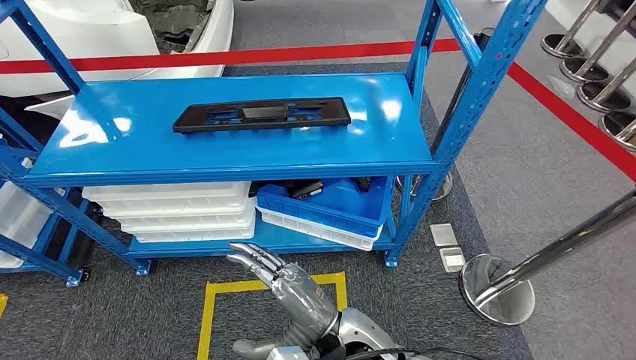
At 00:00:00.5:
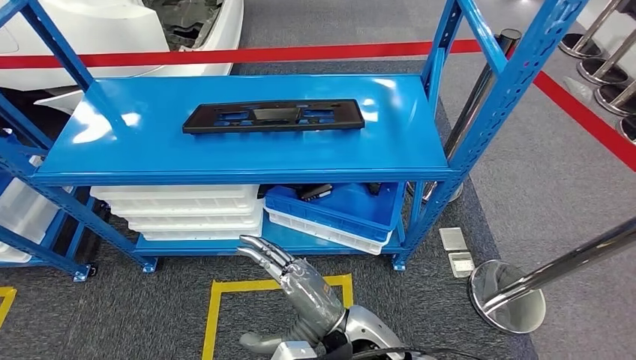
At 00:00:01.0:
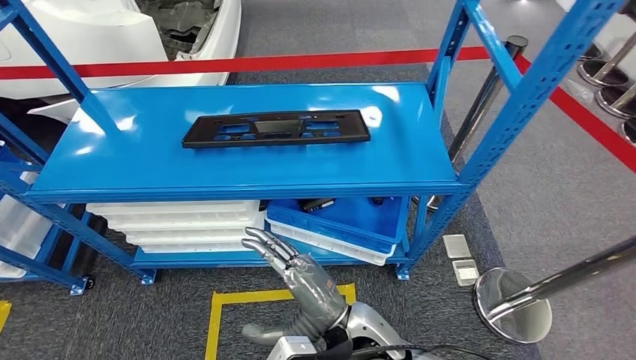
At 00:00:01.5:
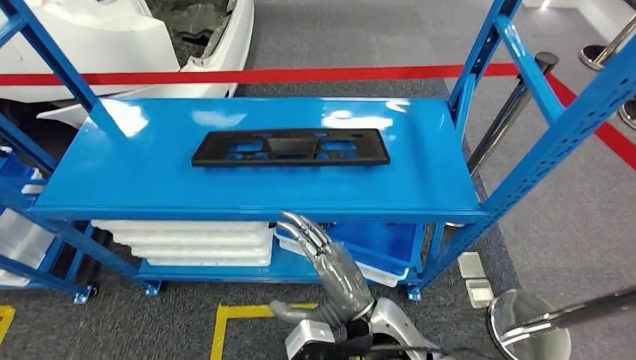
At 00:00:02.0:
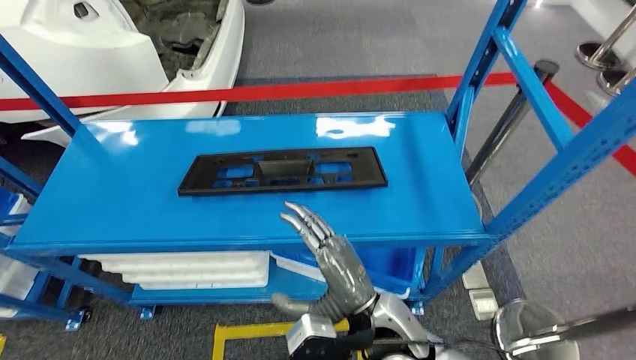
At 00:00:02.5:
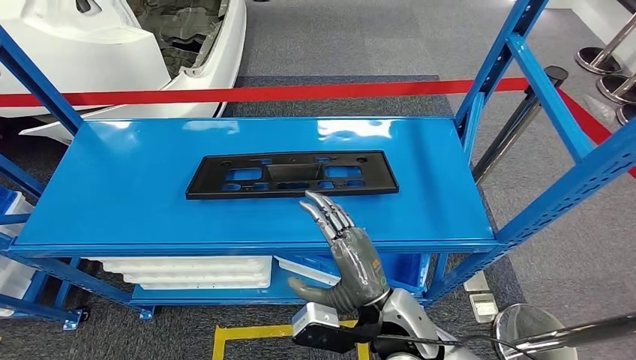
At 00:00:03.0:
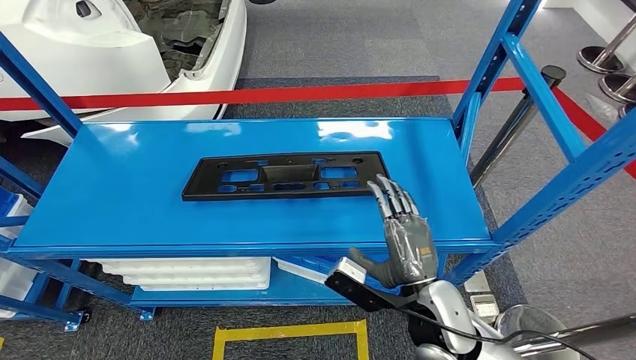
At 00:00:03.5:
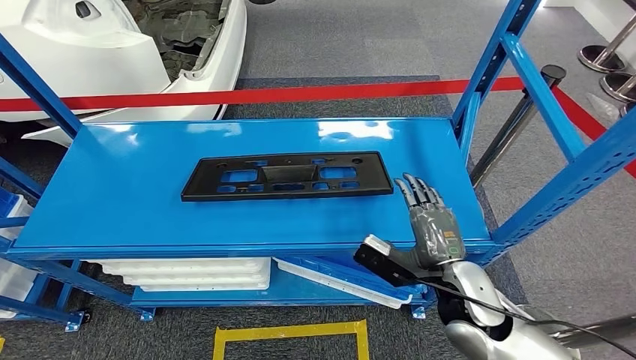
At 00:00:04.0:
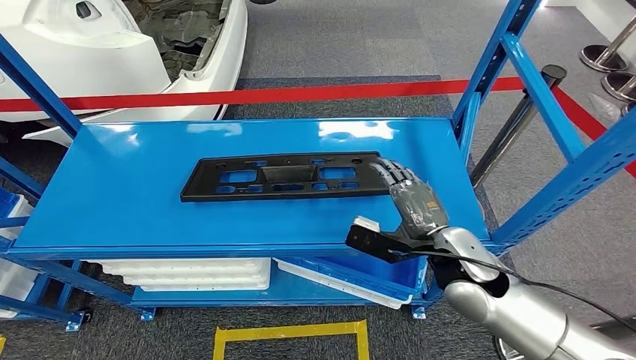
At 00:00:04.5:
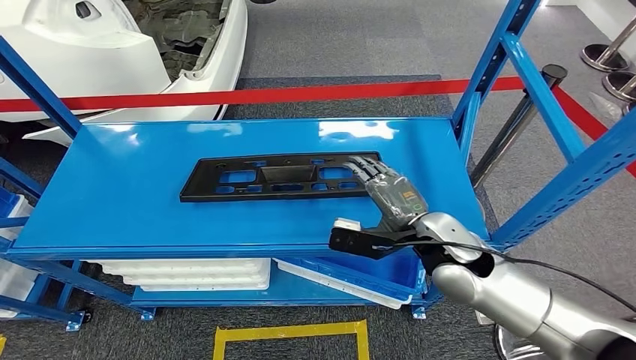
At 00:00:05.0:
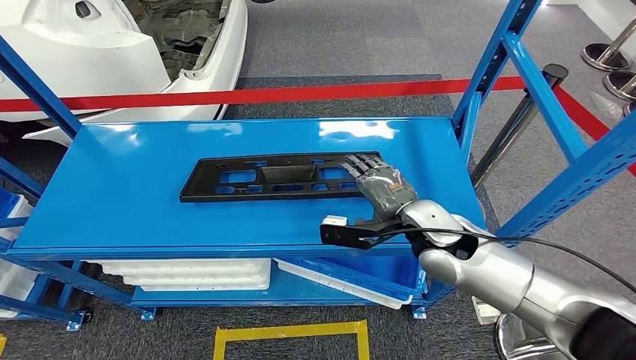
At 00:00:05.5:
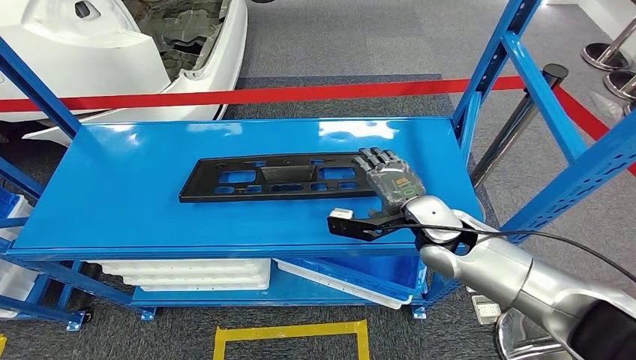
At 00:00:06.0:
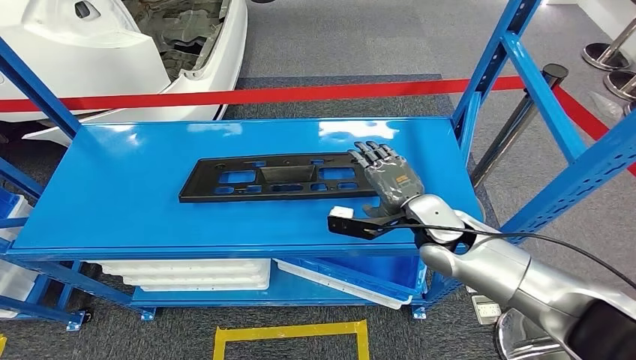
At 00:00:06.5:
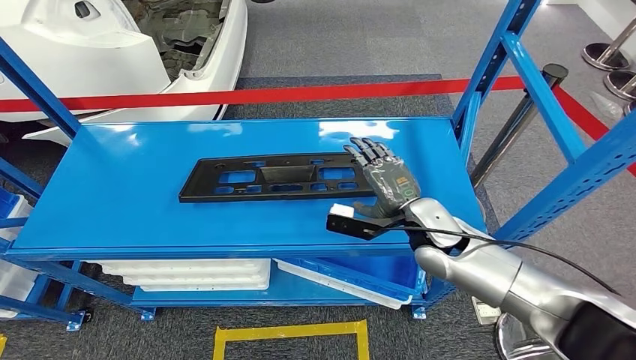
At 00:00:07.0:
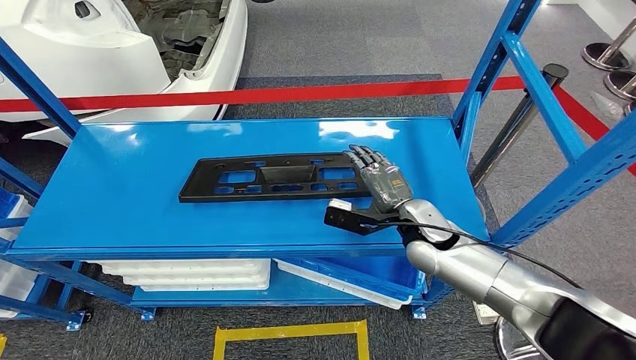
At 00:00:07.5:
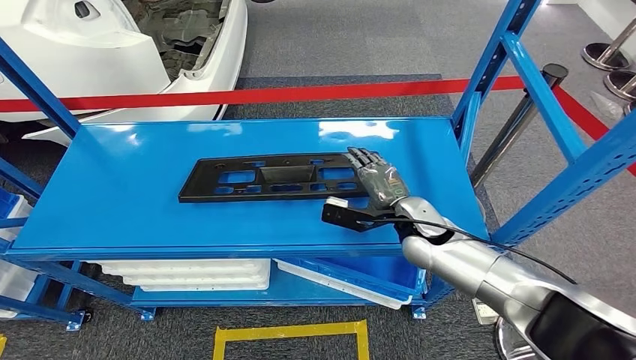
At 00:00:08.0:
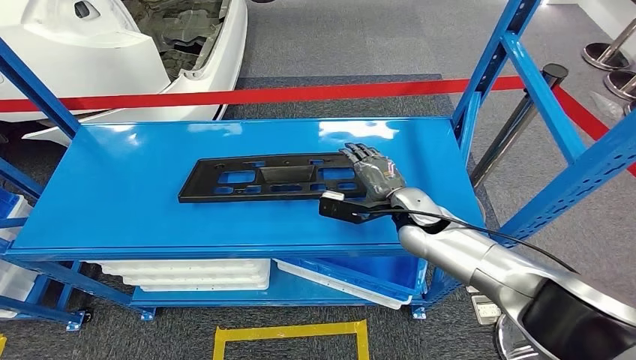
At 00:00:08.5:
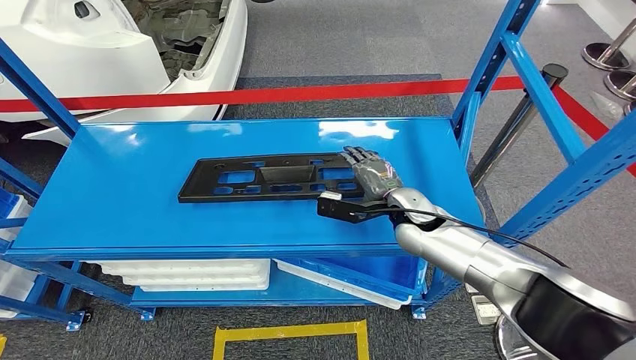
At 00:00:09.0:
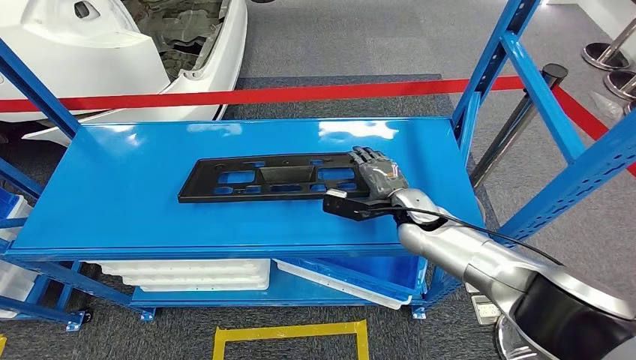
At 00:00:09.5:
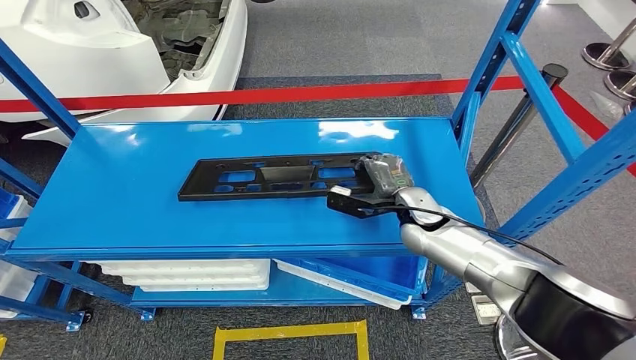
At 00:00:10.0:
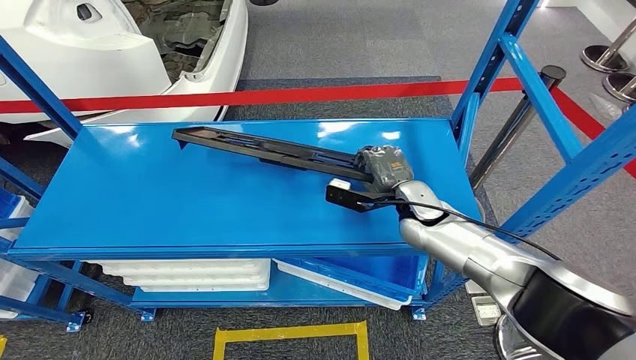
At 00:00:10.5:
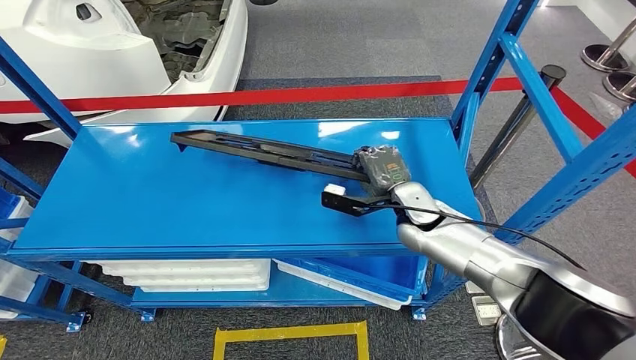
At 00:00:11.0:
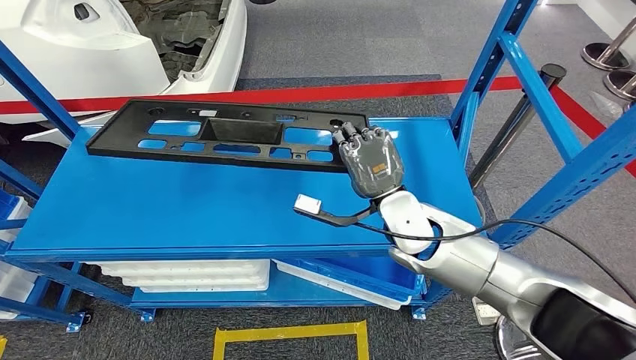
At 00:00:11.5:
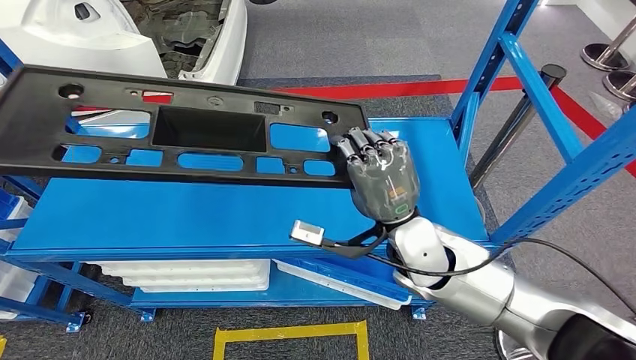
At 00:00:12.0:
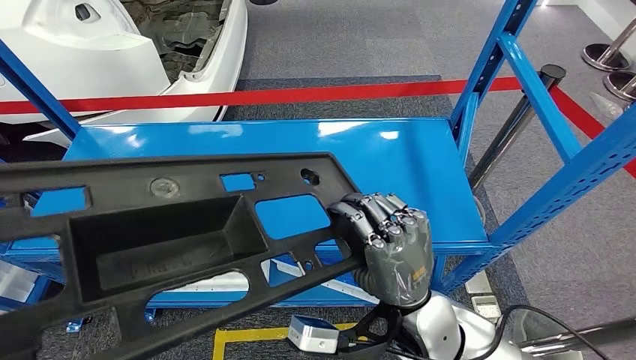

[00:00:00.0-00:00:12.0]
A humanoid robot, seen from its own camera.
00:00:04.0 to 00:00:06.0: The right hand travels forward by approximately 5 cm.
00:00:06.0 to 00:00:08.0: The right hand moves roughly 5 cm.
00:00:08.0 to 00:00:10.0: The hands move only a little.

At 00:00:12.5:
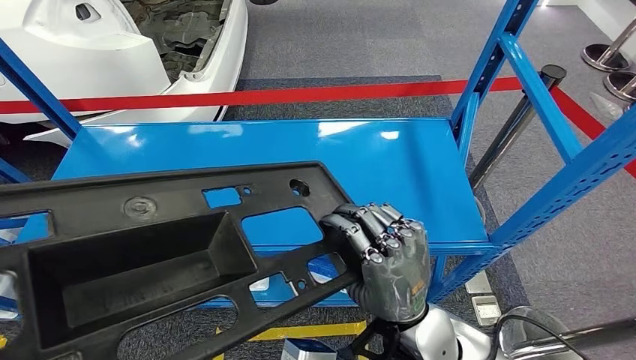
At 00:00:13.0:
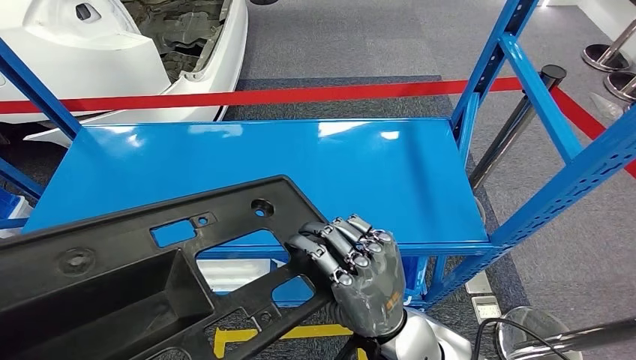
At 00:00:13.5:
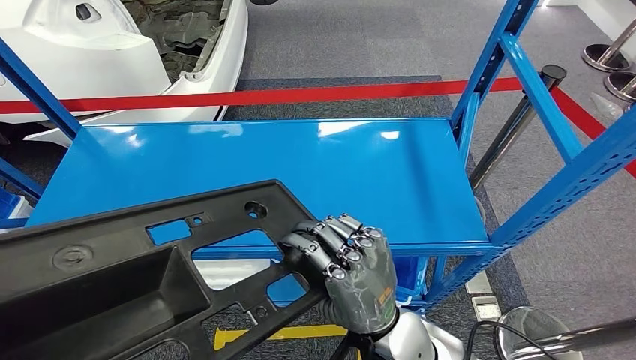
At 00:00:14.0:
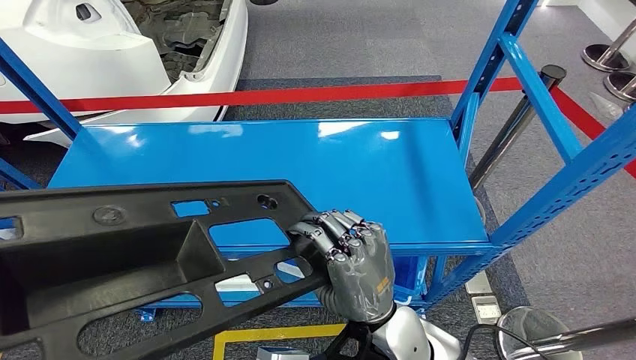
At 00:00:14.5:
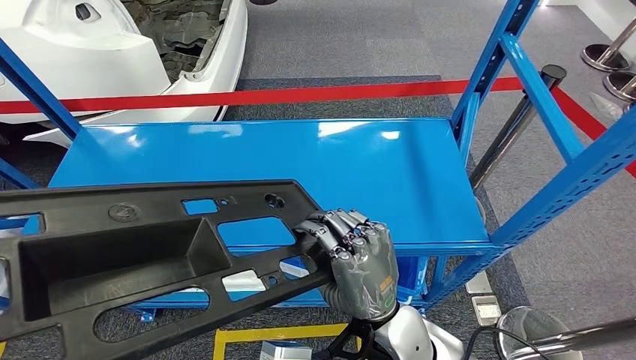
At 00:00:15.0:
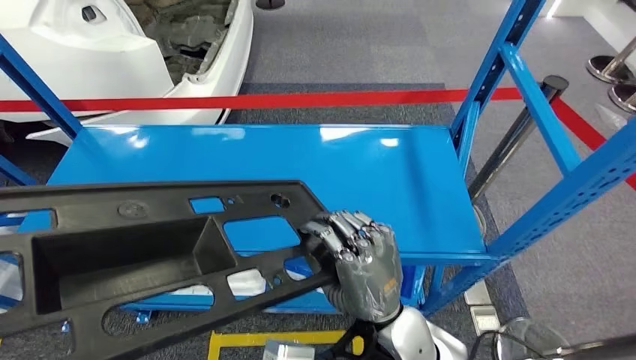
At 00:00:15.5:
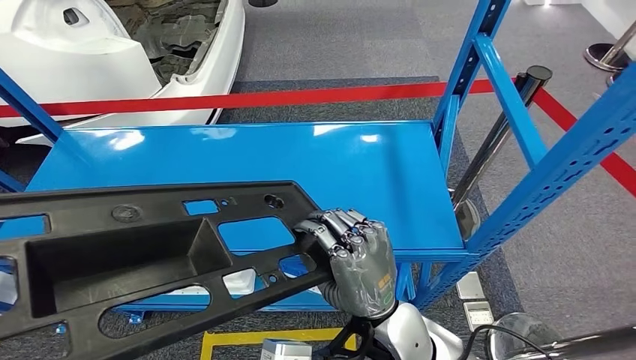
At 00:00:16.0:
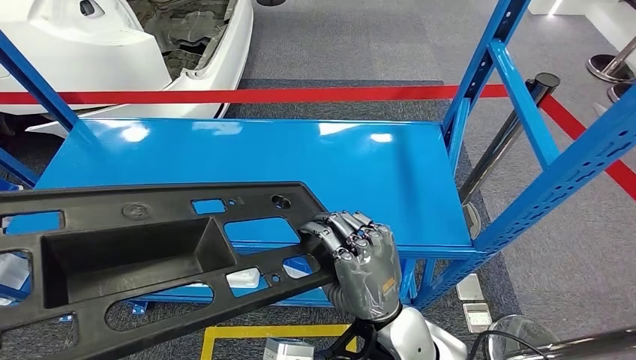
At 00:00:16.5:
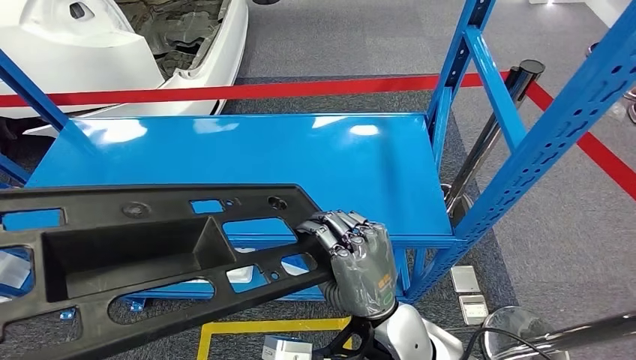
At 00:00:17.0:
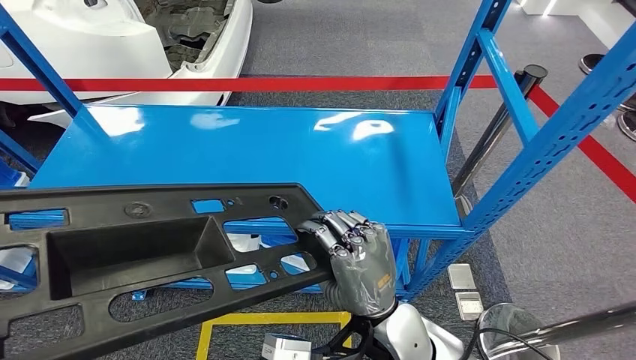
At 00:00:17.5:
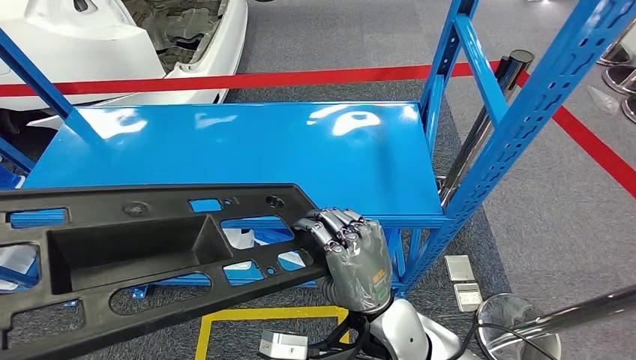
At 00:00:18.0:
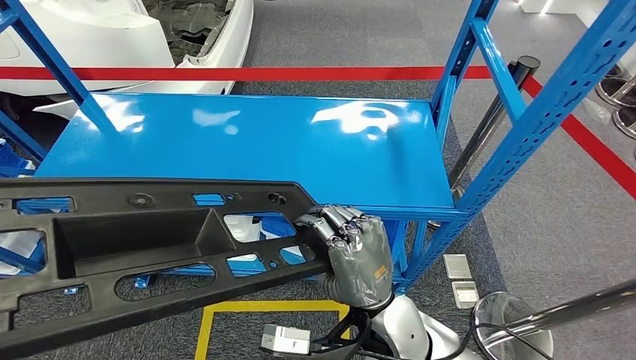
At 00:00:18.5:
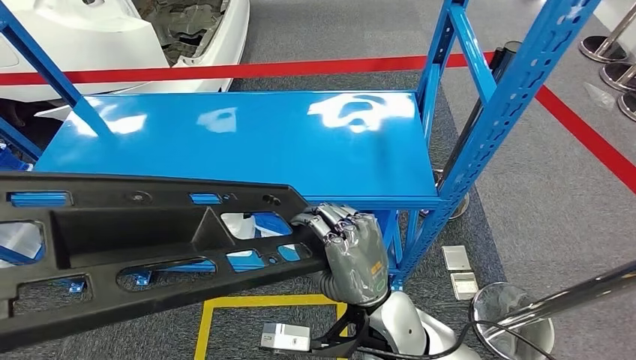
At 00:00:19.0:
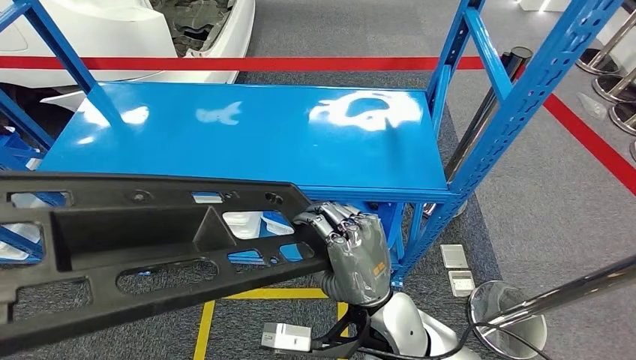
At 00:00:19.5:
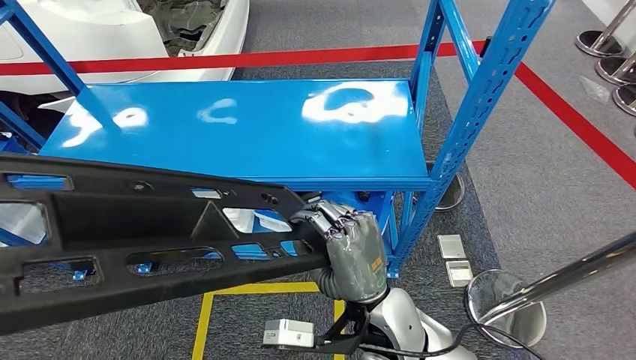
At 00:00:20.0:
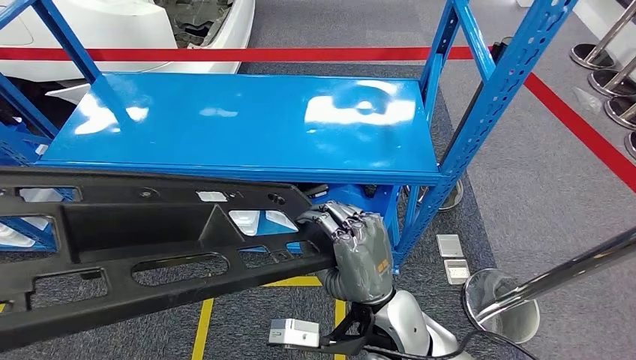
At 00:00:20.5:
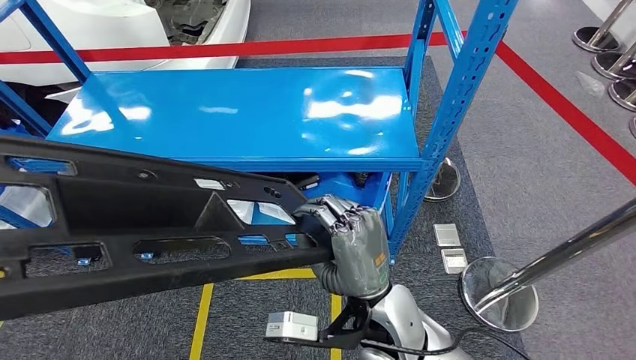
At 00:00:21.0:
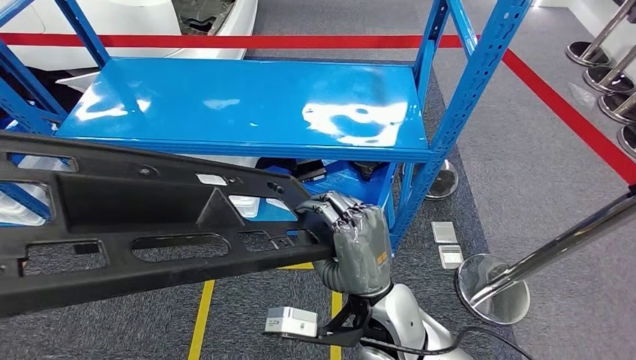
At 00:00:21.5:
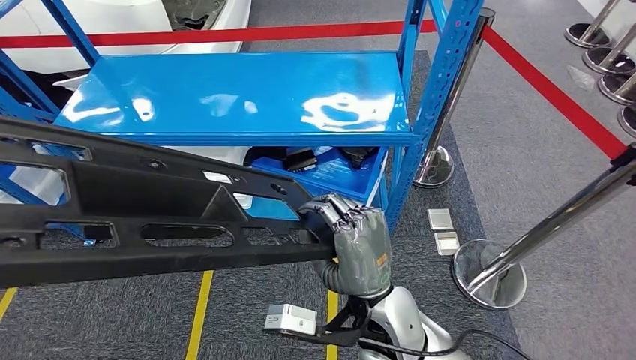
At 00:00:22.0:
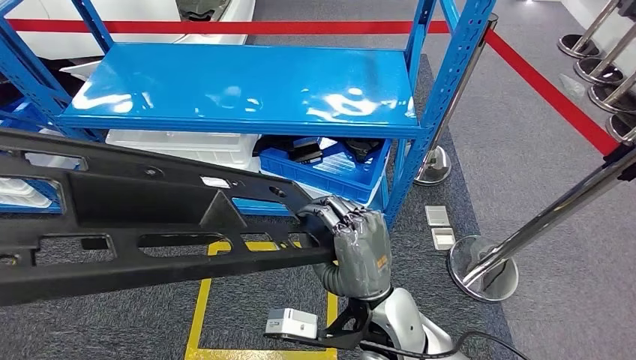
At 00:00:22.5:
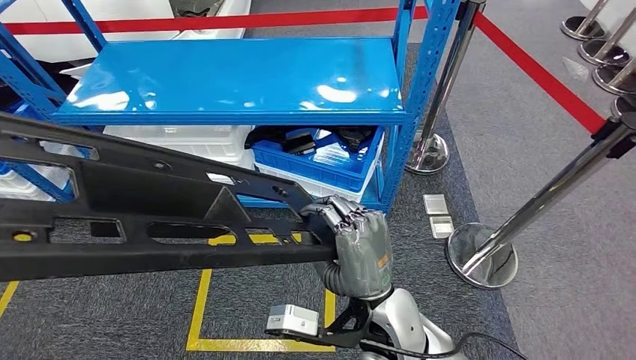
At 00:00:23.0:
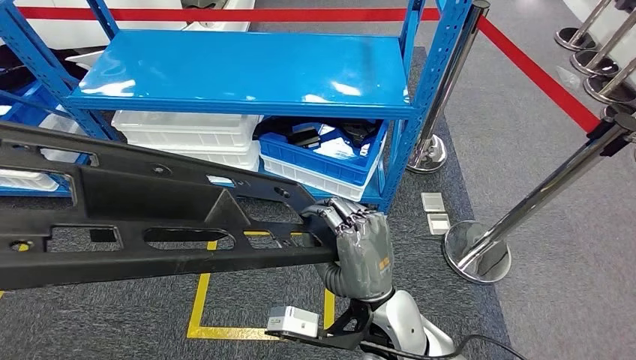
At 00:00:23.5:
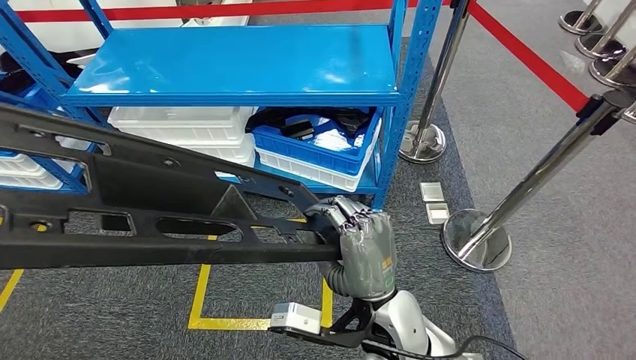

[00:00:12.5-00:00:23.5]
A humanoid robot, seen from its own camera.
Step, 00:00:12.5 to 00:00:16.0: Pick up the large material from the shelf.
00:00:12.5 to 00:00:14.5: There are only small adjustments of the hands.
